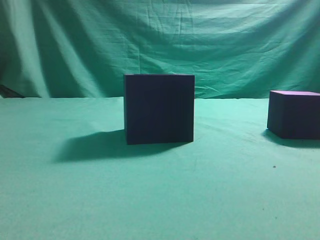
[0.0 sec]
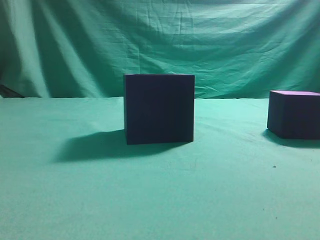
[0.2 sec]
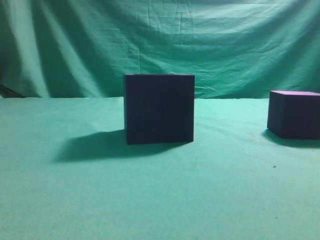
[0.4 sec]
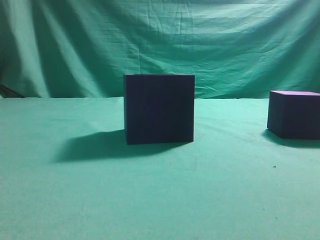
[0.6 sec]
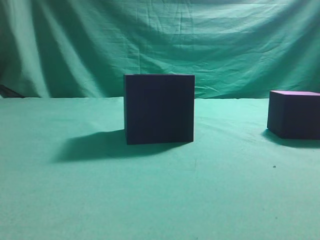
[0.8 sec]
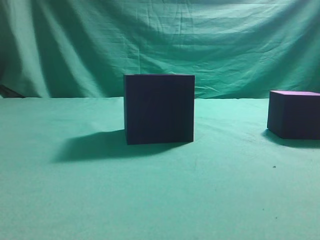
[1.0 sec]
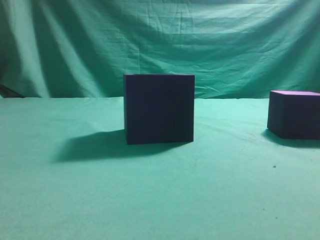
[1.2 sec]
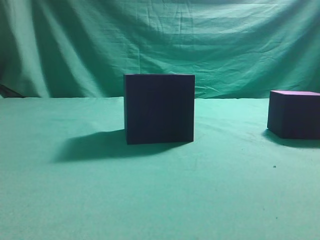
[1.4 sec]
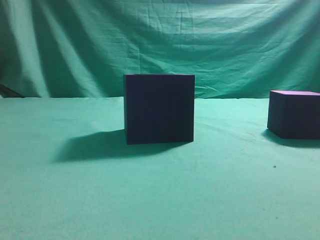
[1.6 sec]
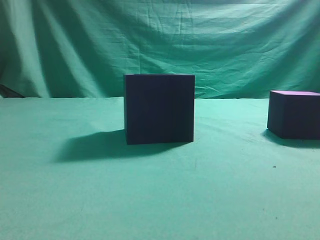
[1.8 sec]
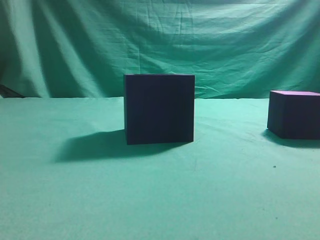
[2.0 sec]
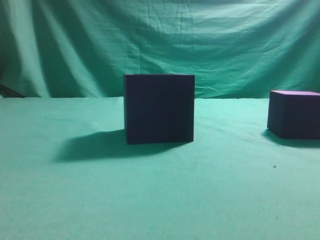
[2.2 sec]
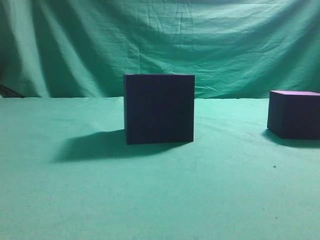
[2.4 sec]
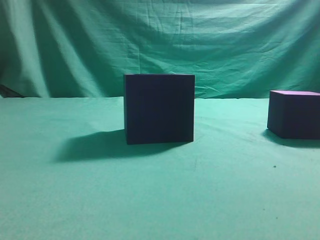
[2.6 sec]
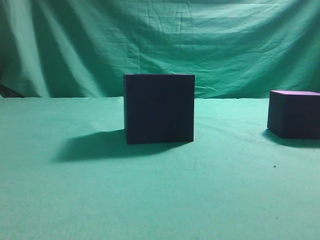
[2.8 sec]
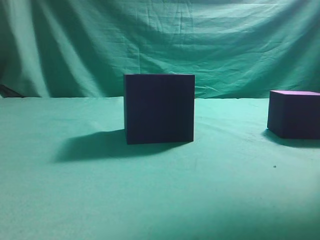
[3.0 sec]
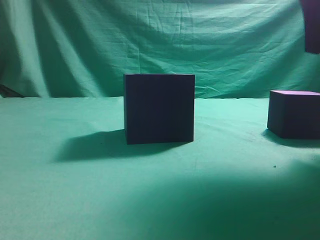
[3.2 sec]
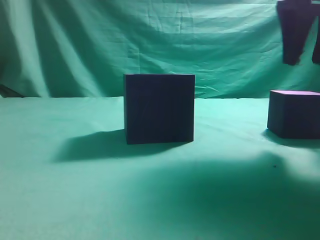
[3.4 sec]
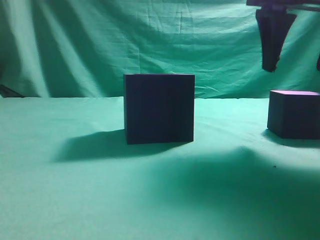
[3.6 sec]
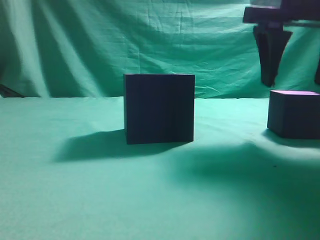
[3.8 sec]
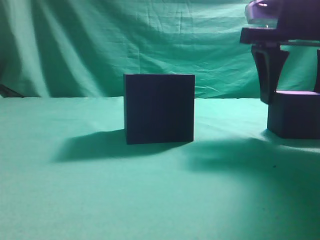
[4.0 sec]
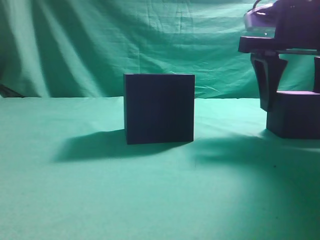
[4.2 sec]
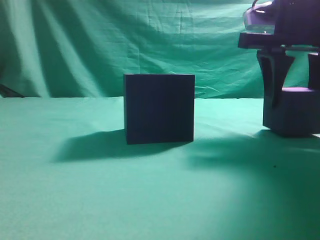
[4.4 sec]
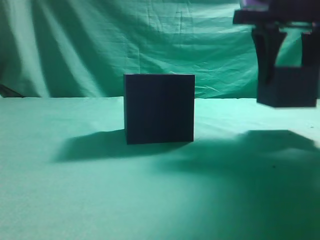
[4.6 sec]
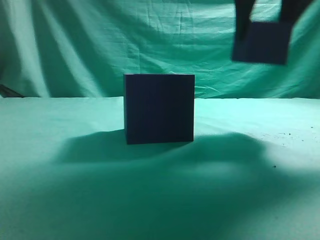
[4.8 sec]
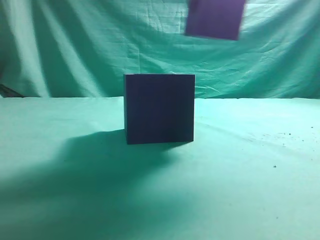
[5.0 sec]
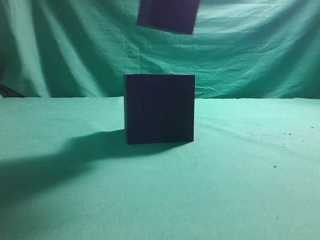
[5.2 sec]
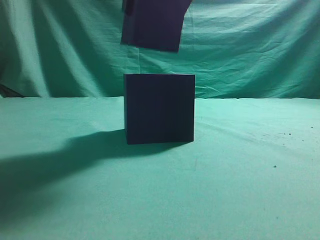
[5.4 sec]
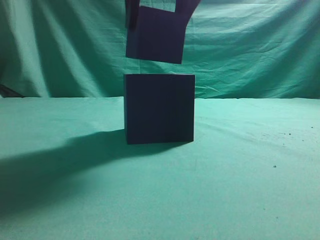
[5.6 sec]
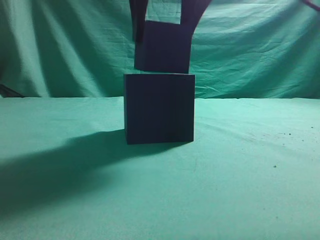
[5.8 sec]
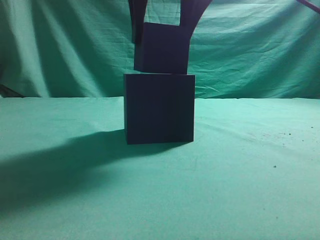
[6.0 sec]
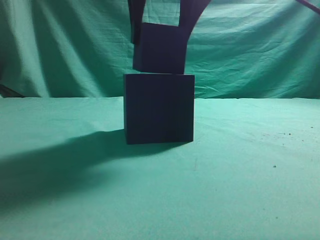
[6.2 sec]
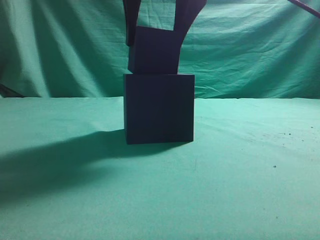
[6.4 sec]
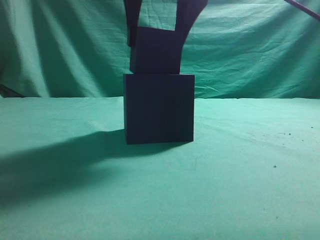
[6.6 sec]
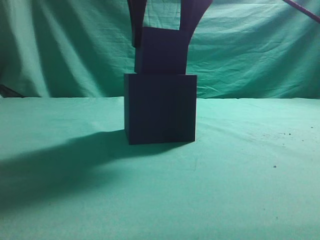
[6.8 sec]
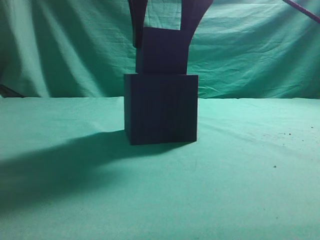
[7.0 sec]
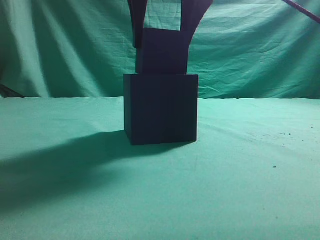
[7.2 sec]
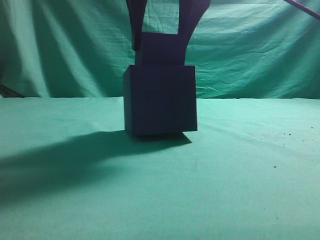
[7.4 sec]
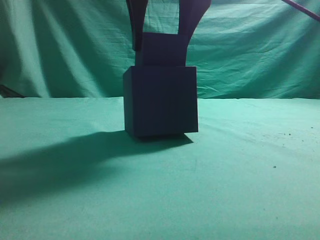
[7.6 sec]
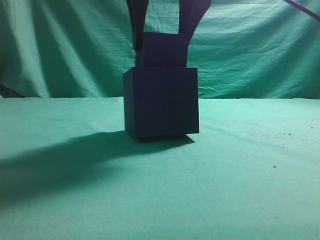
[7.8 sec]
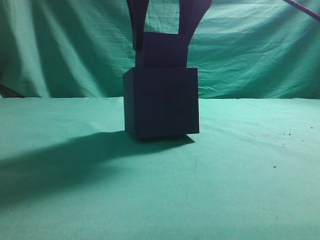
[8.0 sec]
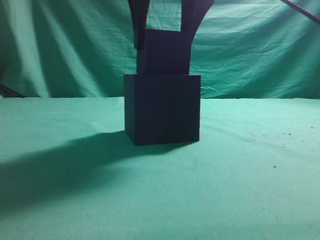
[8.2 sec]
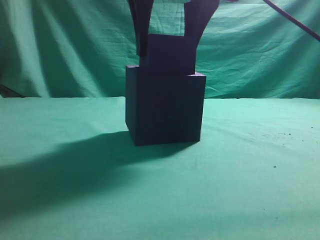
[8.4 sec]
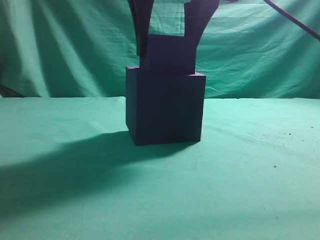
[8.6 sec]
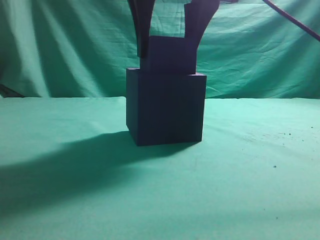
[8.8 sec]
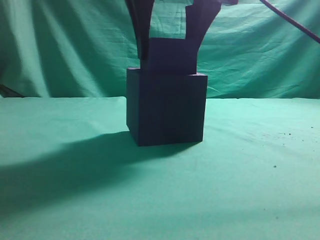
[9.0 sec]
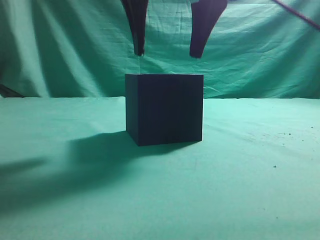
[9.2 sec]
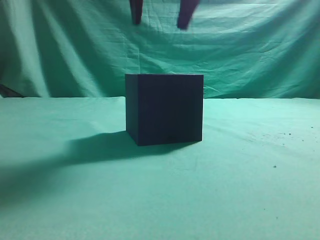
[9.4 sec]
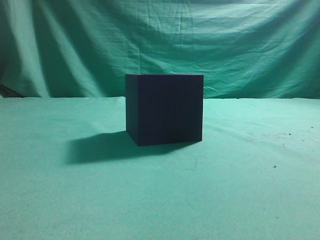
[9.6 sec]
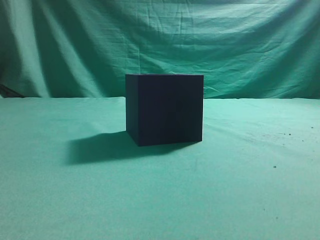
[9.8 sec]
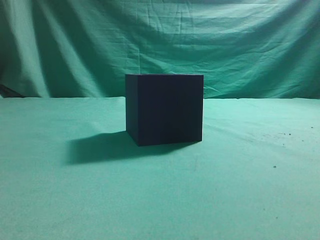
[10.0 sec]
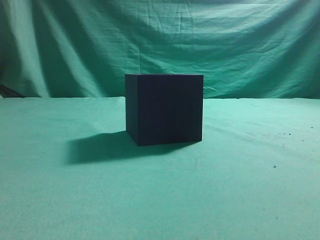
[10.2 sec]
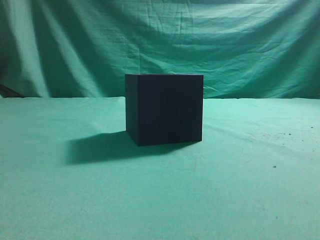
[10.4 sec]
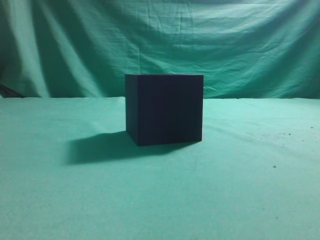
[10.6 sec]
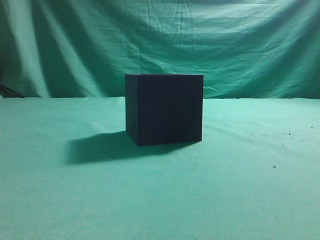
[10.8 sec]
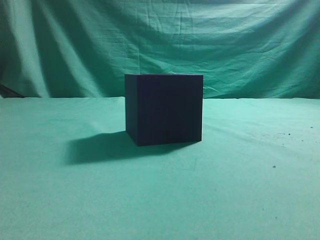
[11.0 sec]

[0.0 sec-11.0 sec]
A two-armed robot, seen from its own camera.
Task of the whole recording: pick up the cube block and place it into the cube groove.
Step, 0.0 sec to 4.4 sec: Grasp the cube.
Step, 4.8 sec to 9.2 sec: Place cube into the cube-shaped recess.
1.6 sec to 3.2 sec: The right gripper is displaced forward and to the left by approximately 25 cm.
3.2 sec to 4.8 sec: The right gripper goes approximately 5 cm forward, reaches some 5 cm downward, then returns, and opens.
4.8 sec to 6.2 sec: The right gripper shifts about 15 cm to the left.
6.2 sec to 7.8 sec: Both grippers stay put.
7.8 sec to 9.4 sec: There are only small adjustments of the grippers.
9.4 sec to 11.0 sec: The right gripper travels backward and to the right by about 35 cm, and closes up.

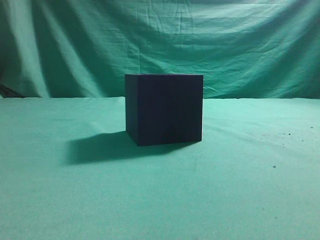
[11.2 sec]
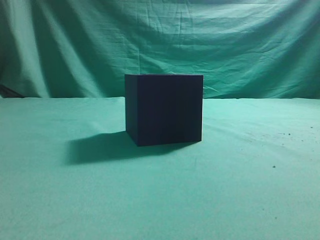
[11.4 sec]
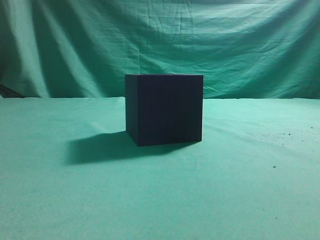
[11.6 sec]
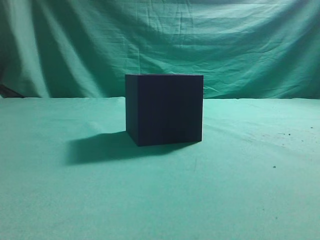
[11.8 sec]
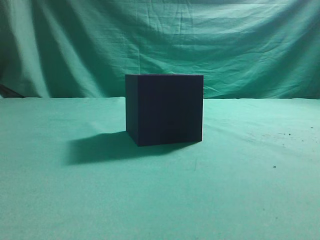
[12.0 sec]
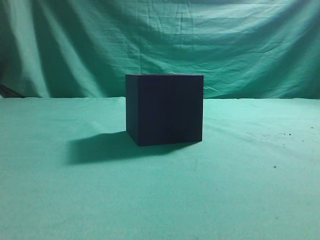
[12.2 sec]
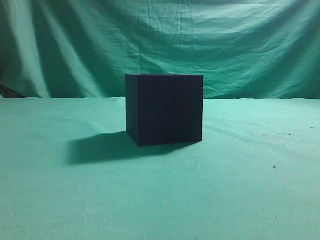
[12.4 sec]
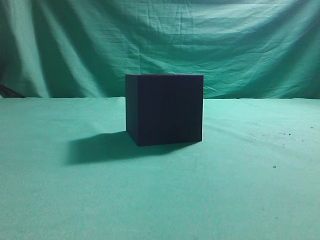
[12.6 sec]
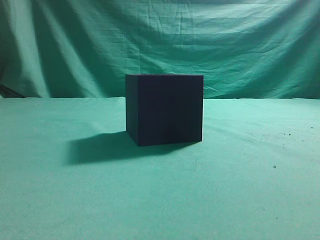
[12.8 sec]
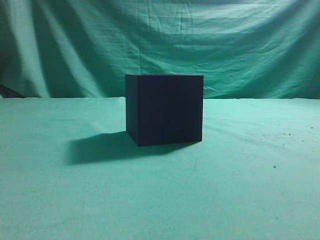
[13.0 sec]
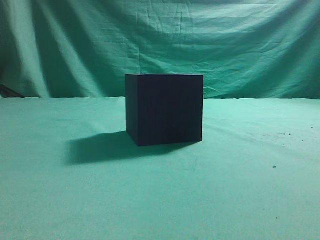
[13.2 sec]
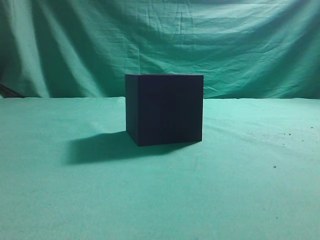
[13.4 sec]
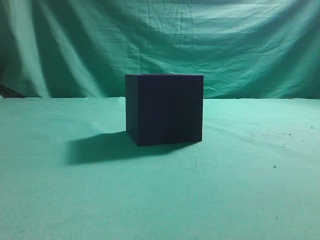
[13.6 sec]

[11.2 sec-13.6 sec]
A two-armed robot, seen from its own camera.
Task of the whole recording: pick up the cube block and place it into the cube groove.
12.4 sec to 13.6 sec: Neither gripper changes place.

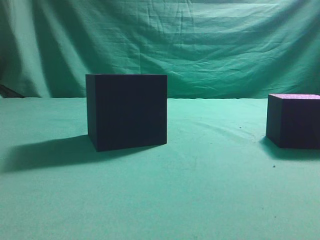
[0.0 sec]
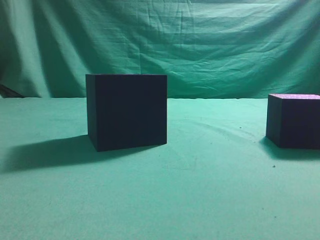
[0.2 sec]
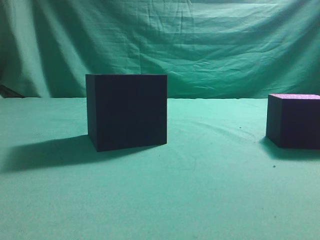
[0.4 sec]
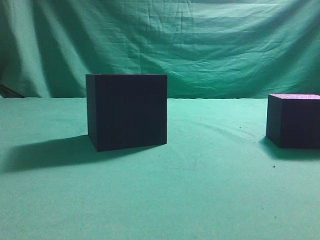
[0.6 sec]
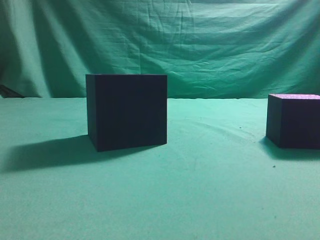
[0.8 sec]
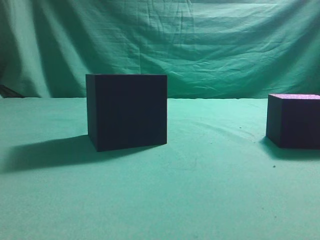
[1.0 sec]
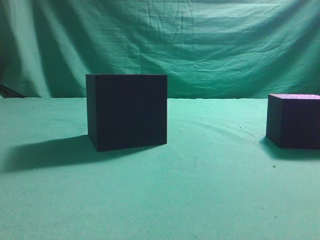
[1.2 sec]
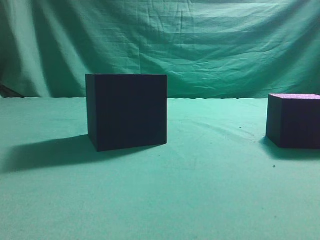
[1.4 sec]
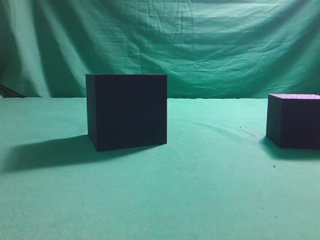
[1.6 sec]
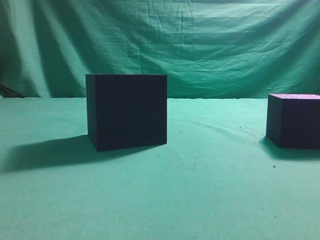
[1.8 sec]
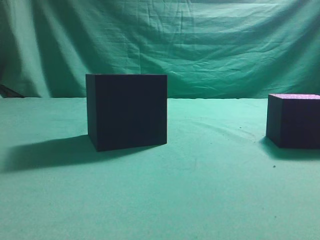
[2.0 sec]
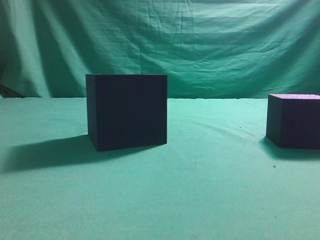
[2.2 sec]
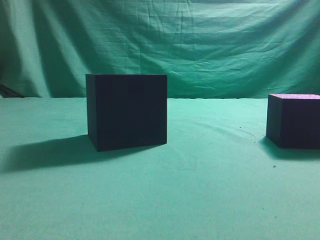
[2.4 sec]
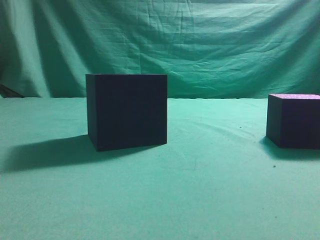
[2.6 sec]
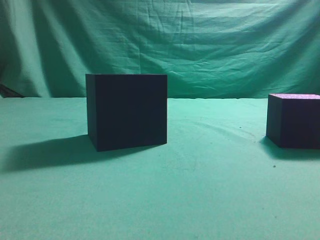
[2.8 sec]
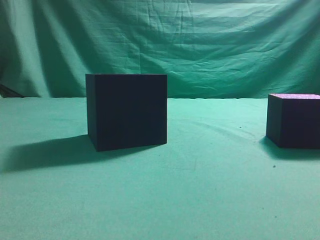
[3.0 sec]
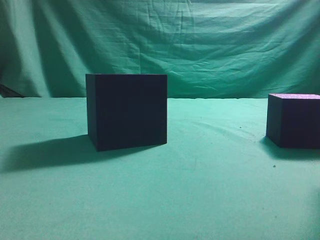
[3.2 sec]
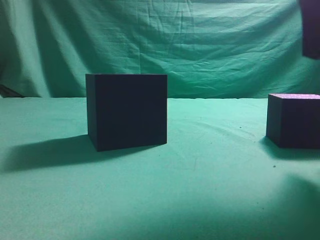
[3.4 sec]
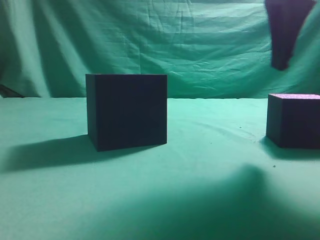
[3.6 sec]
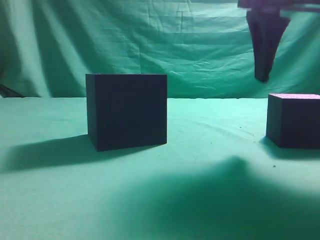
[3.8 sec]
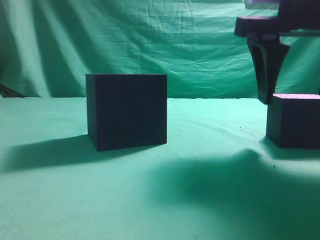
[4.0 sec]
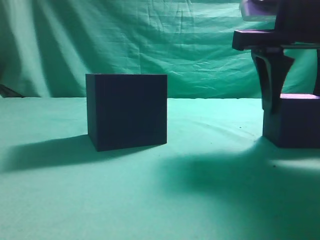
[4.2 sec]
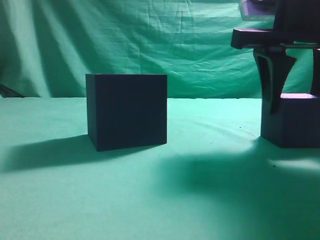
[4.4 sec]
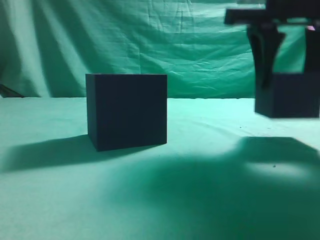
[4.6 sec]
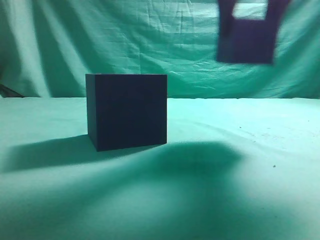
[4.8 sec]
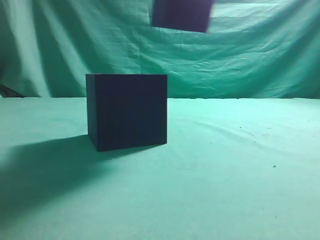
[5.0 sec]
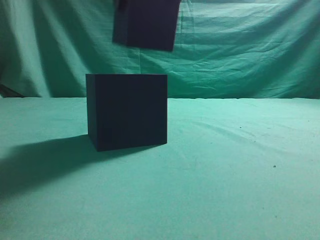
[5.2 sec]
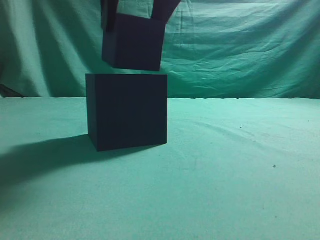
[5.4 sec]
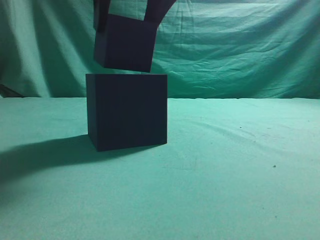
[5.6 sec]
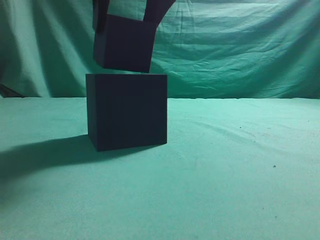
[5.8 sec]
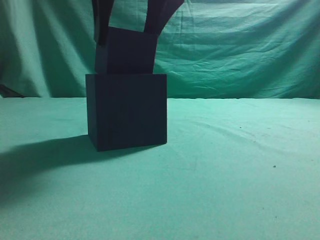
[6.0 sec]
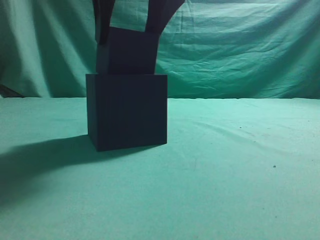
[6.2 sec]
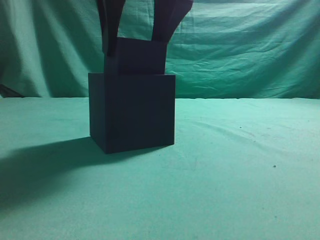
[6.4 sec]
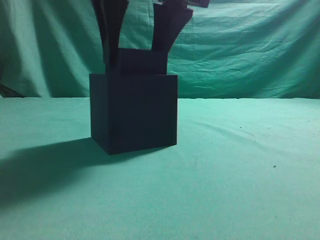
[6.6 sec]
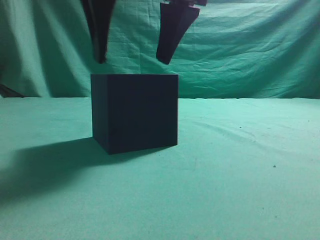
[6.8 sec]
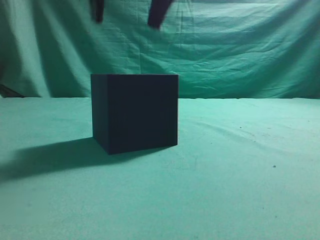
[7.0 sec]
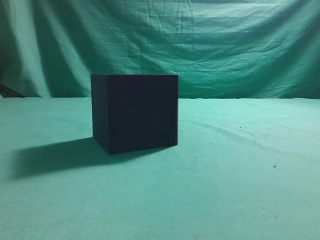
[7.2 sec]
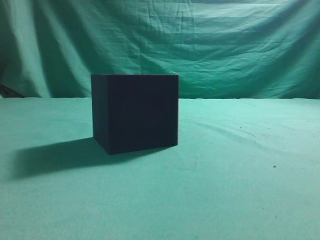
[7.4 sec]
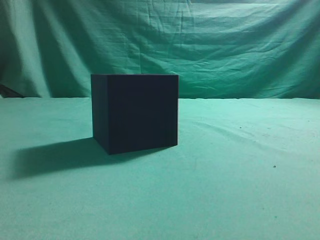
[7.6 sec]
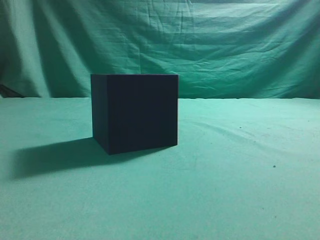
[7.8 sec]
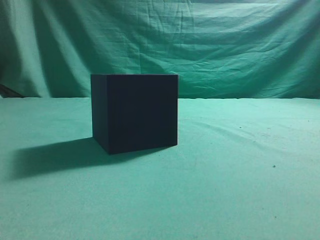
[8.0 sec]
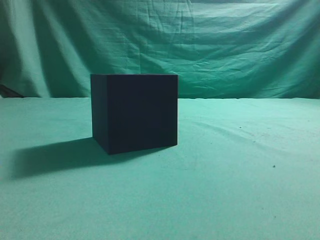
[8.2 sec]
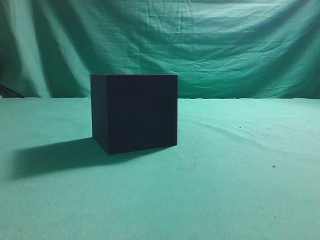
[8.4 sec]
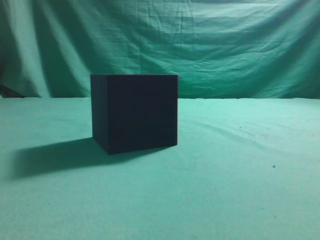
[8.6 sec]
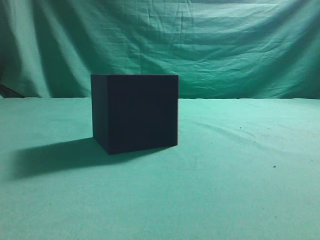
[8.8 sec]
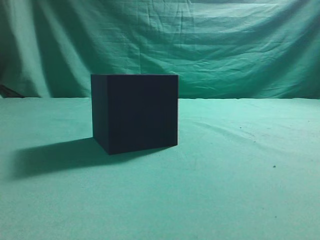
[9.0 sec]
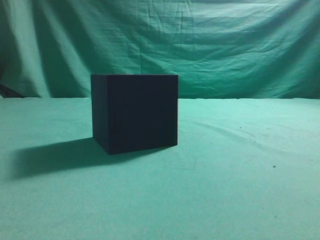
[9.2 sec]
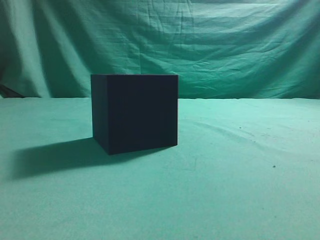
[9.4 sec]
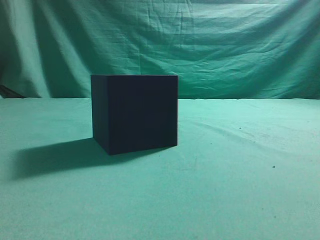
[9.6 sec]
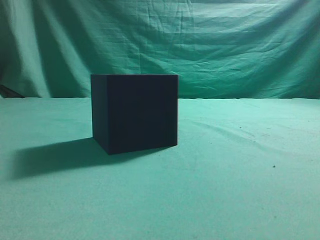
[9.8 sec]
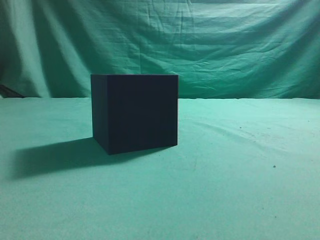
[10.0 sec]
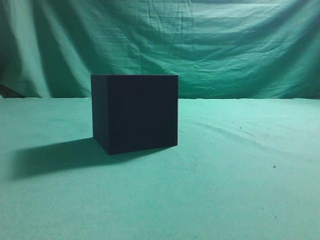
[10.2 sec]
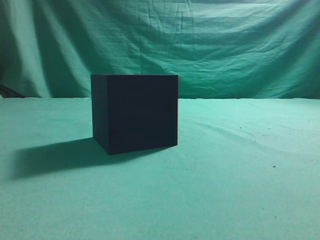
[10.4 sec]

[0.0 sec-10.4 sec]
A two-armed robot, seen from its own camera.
Task of the whole recording: pick up the cube block and place it into the cube groove.
Step, 0.0 sec to 4.4 sec: Grasp the cube.
Step, 4.6 sec to 6.8 sec: Place cube into the cube-shaped recess.
3.0 sec to 4.4 sec: The right gripper shifts some 10 cm forward, downward and to the left, and opens.
4.4 sec to 6.0 sec: The right gripper heads to the left and upward, covering roughly 20 cm.
6.0 sec to 7.4 sec: The right gripper is displaced upward by about 10 cm, and closes up.
